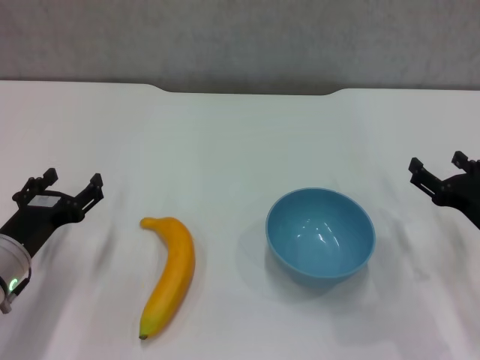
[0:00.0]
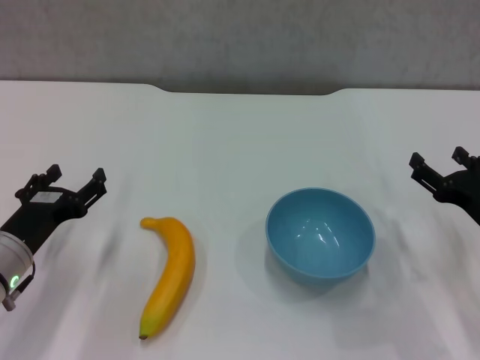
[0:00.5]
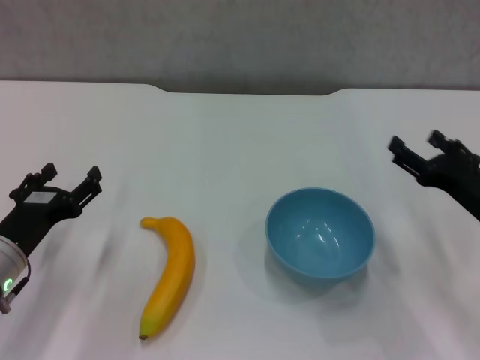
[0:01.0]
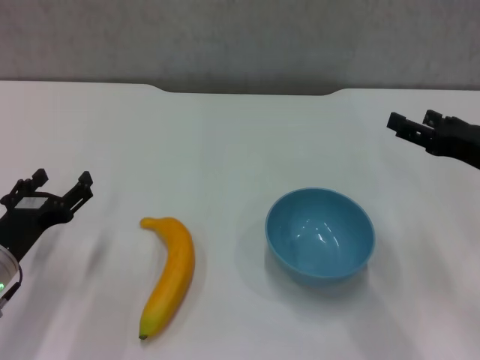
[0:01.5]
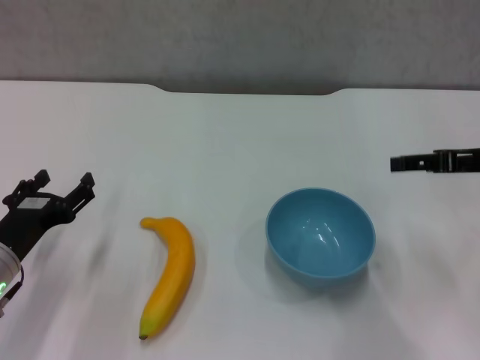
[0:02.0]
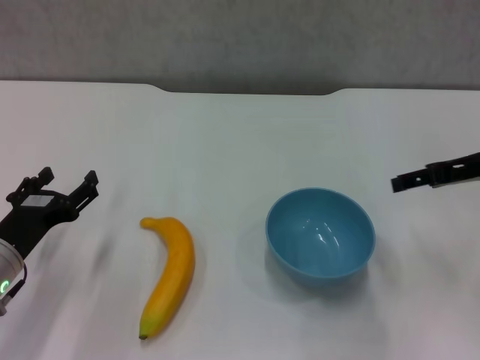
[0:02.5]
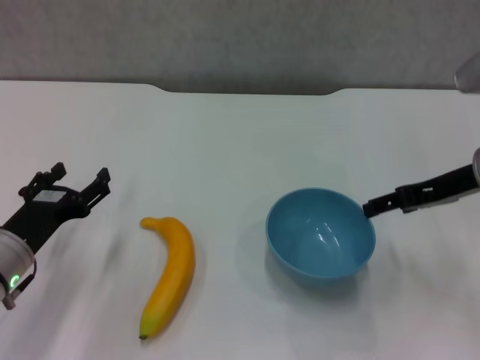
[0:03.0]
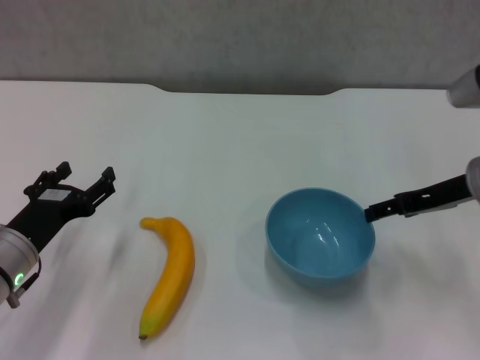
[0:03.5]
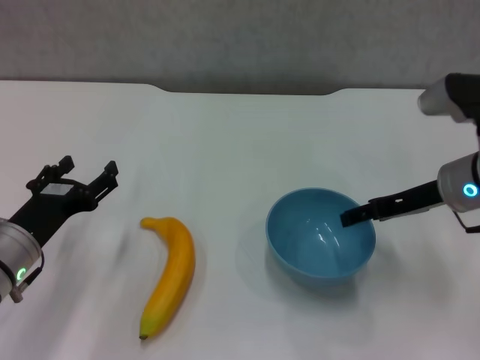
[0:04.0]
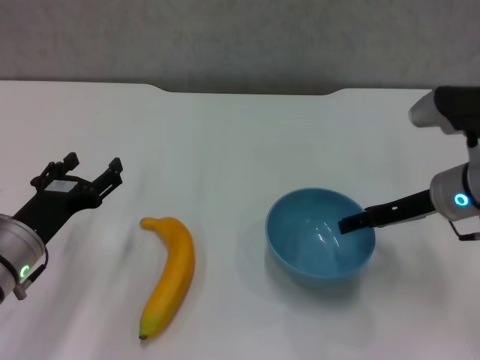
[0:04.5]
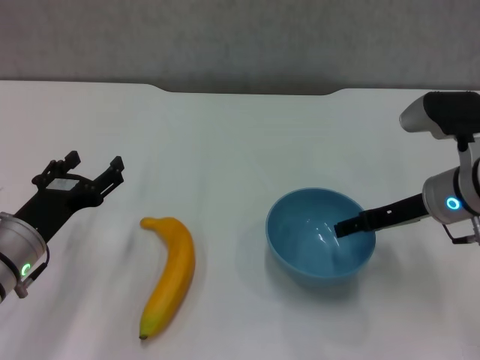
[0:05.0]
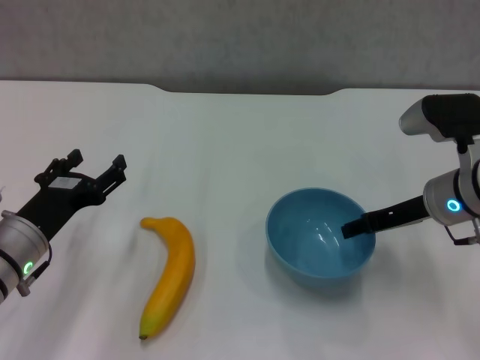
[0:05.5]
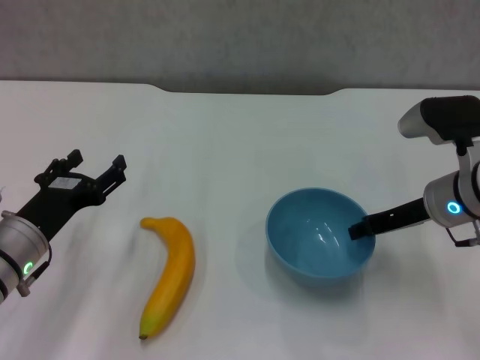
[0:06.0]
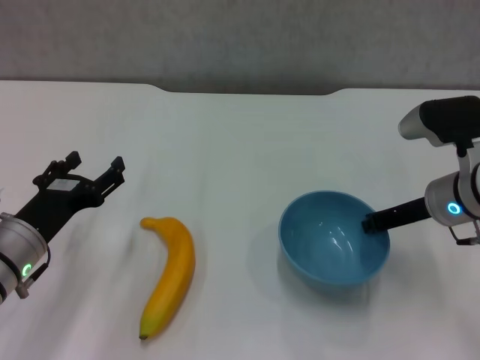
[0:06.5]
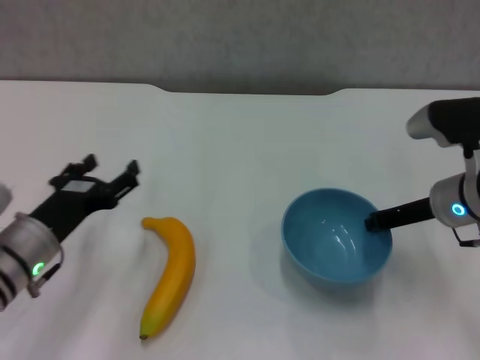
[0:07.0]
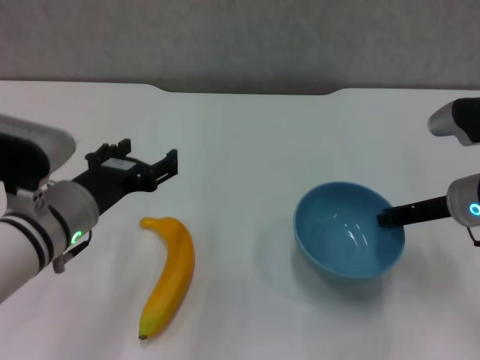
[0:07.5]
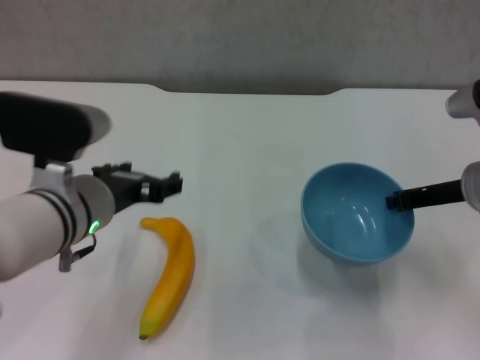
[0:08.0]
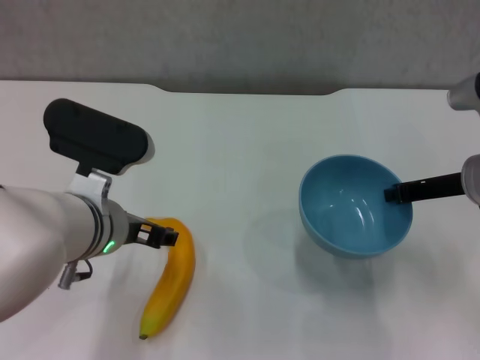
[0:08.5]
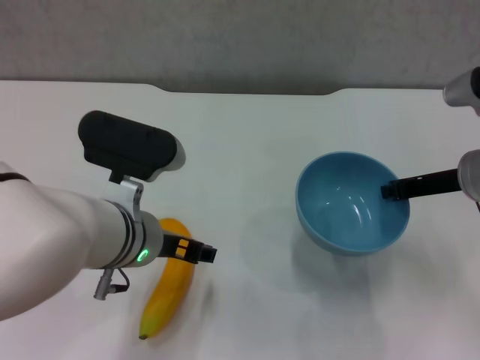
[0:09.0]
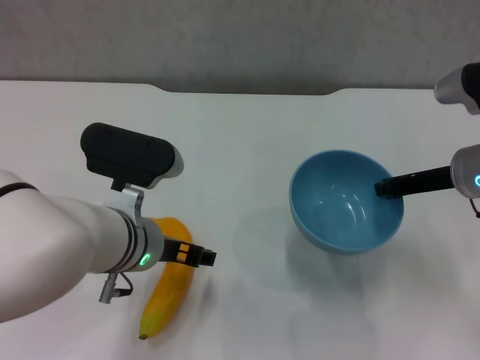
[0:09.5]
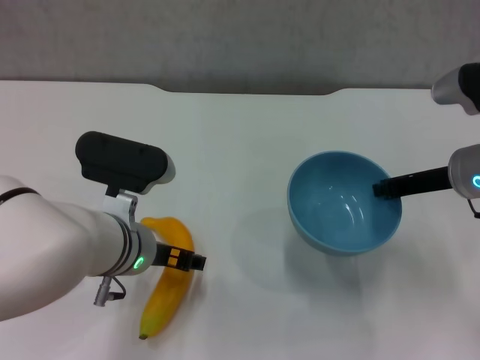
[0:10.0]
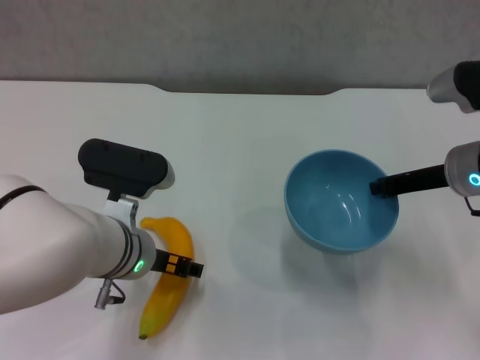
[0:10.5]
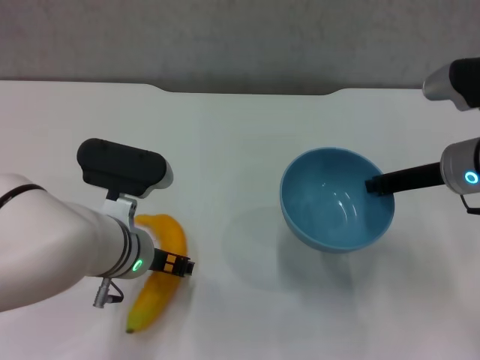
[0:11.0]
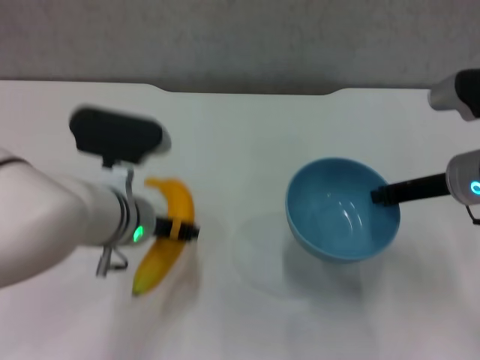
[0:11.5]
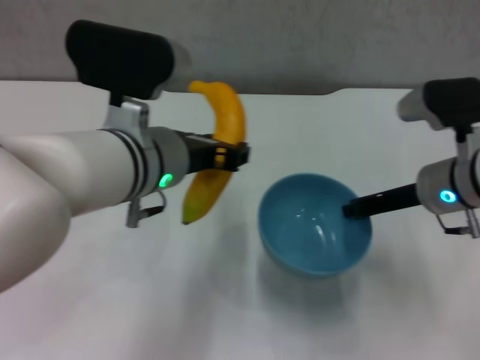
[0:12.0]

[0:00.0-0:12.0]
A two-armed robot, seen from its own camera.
Step, 0:00.0 to 0:06.0: Grasp the blue bowl with right gripper.
Step, 0:06.5 to 0:08.0: Lift the blue bowl with right gripper.
Step, 0:08.5 to 0:11.0: Grasp the banana with left gripper.
0:00.0 to 0:02.0: The right gripper travels upward by about 15 cm.
0:02.0 to 0:04.0: The right gripper goes some 10 cm to the left and downward.
0:04.0 to 0:06.0: The right gripper closes up.
0:06.0 to 0:08.0: The left gripper heads upward and to the right, covering some 15 cm; the right gripper closes up.
0:08.0 to 0:10.0: The left gripper moves about 5 cm.
0:10.0 to 0:12.0: The left gripper shifts some 10 cm upward, and closes up.

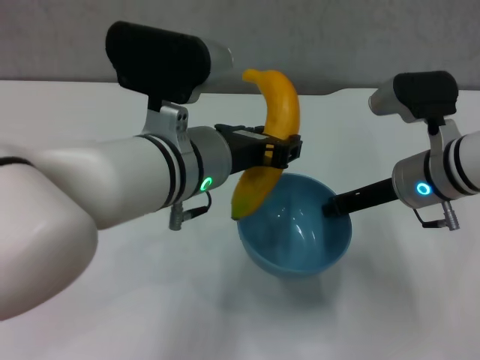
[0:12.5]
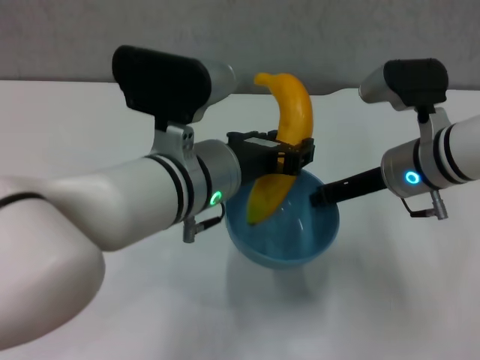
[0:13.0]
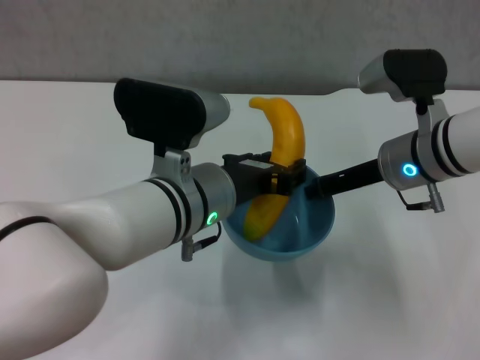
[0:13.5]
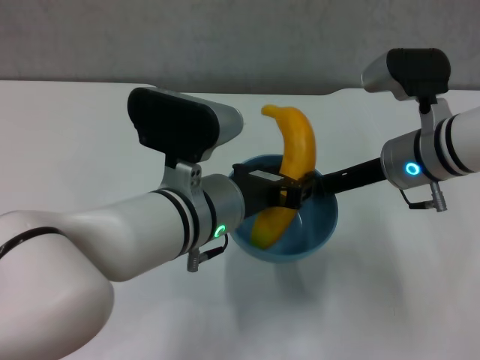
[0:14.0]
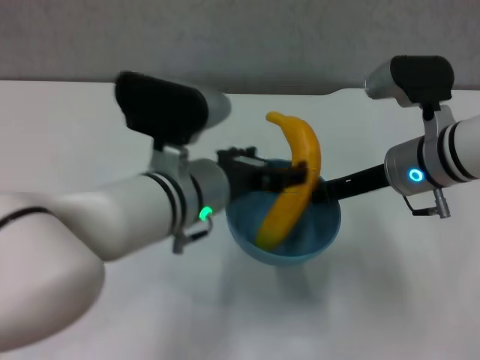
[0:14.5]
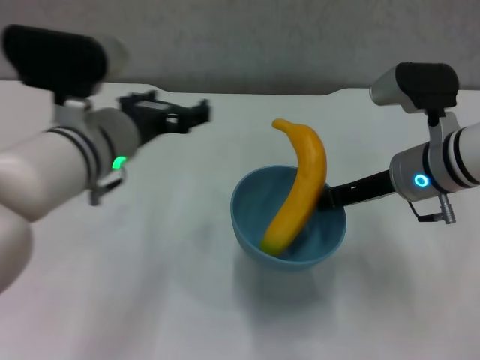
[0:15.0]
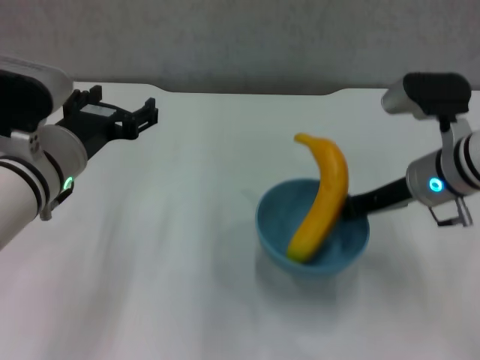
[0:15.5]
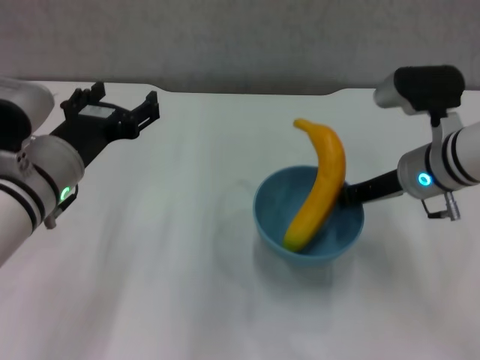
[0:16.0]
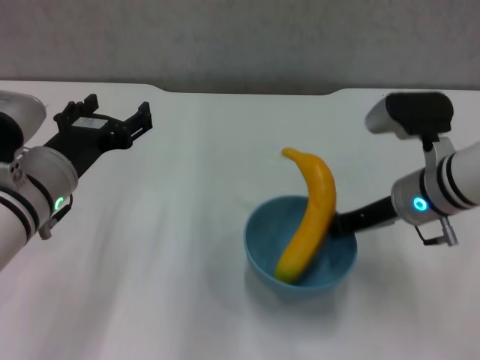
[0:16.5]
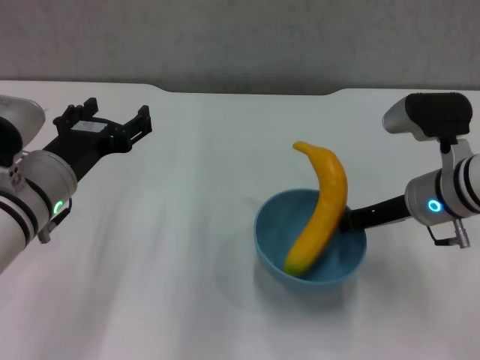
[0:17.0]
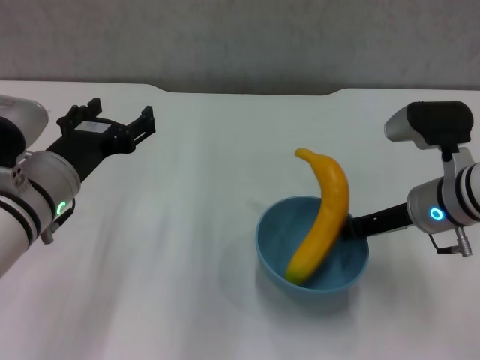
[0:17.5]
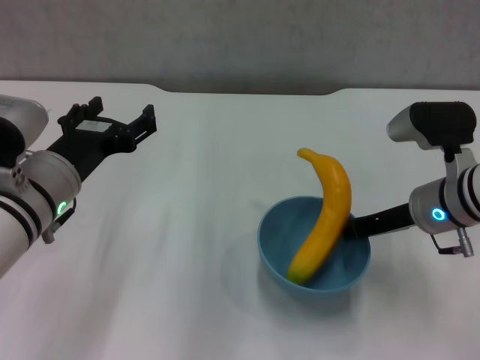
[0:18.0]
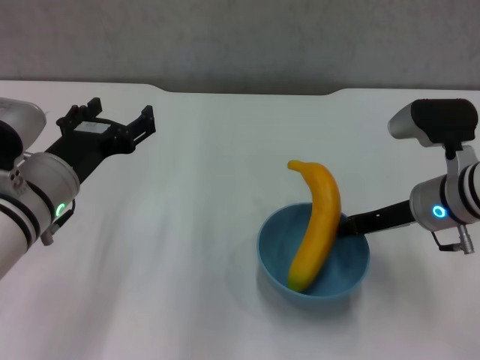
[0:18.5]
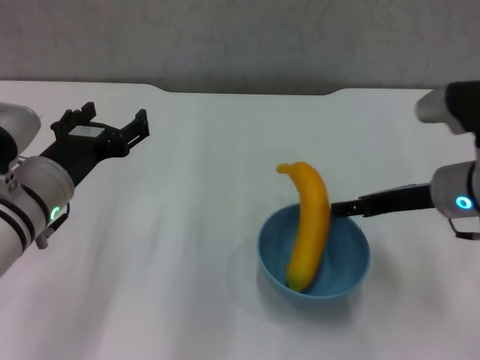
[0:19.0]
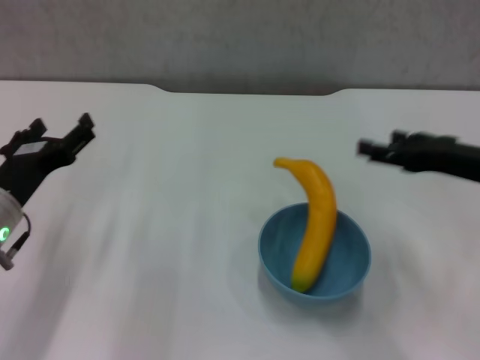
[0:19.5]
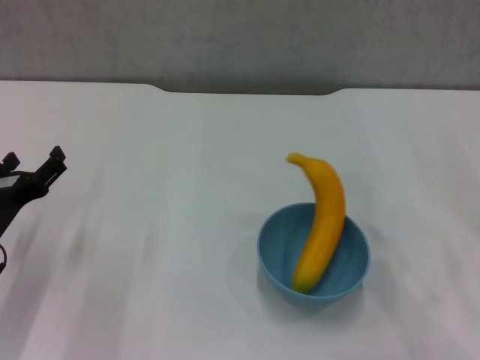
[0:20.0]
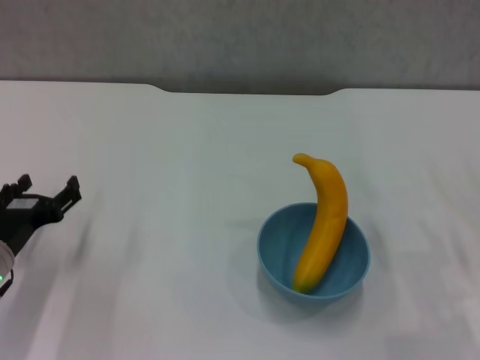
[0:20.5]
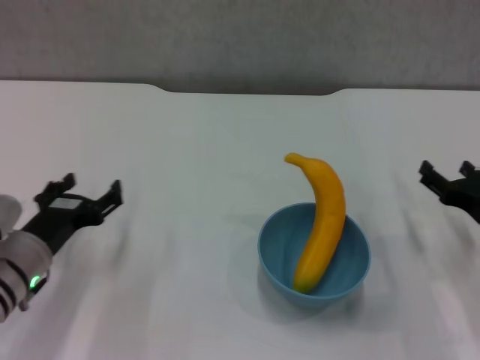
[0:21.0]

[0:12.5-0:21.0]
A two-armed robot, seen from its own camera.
Step, 0:12.5 to 0:14.5: Place the banana in the blue bowl with left gripper.
Step, 0:15.0 to 0:19.0: Place the bowl on the table with right gripper.
0:12.5 to 0:14.5: The left gripper opens up.
0:14.5 to 0:16.5: The left gripper shifts some 15 cm to the left, and opens up.
0:16.5 to 0:19.0: The right gripper opens its fingers.
0:19.0 to 0:21.0: The left gripper shifts about 10 cm downward; the right gripper is displaced downward, to the right and backward by approximately 15 cm.

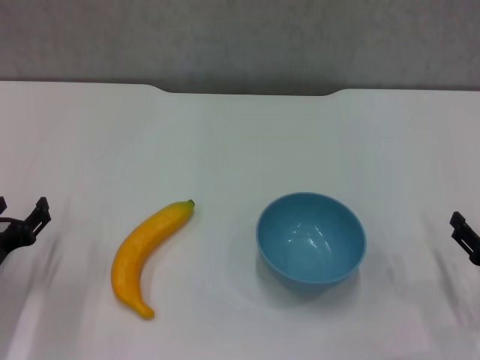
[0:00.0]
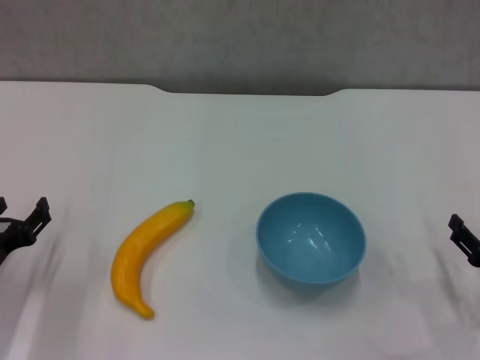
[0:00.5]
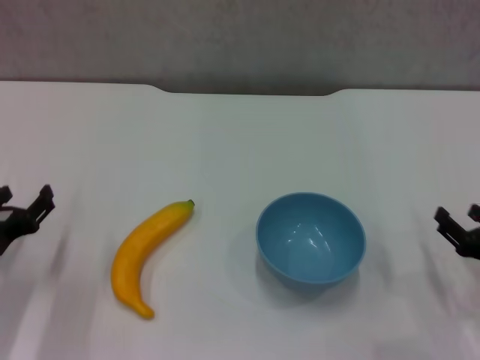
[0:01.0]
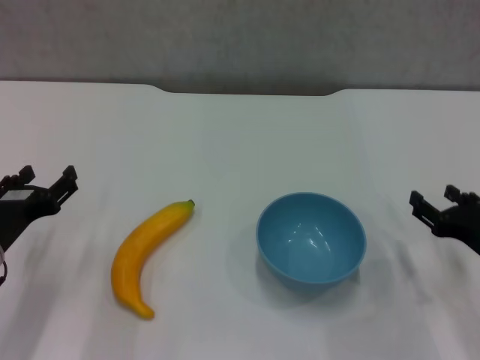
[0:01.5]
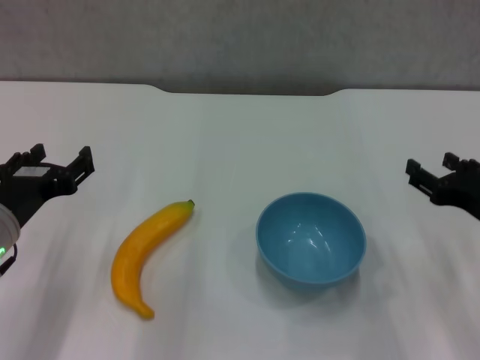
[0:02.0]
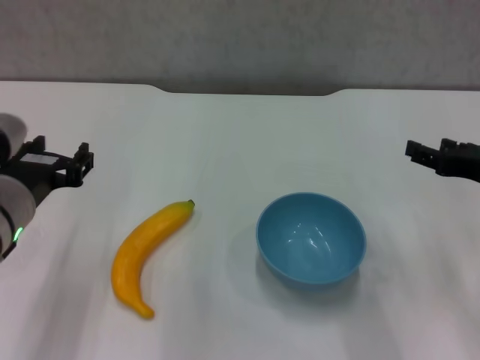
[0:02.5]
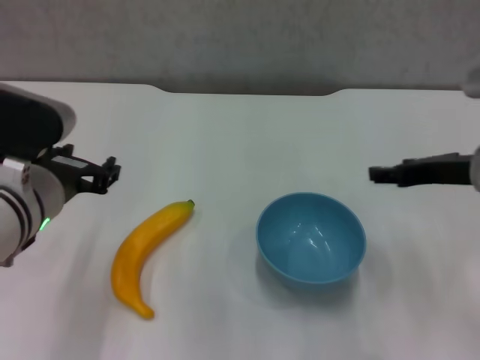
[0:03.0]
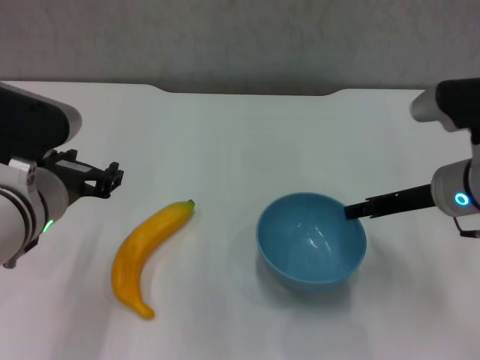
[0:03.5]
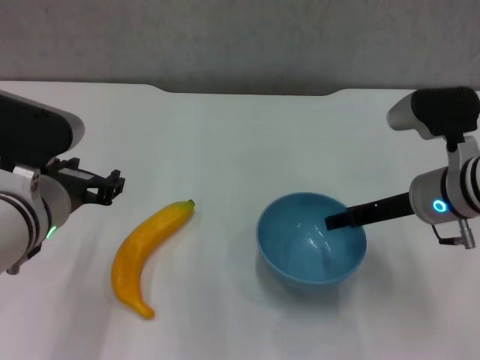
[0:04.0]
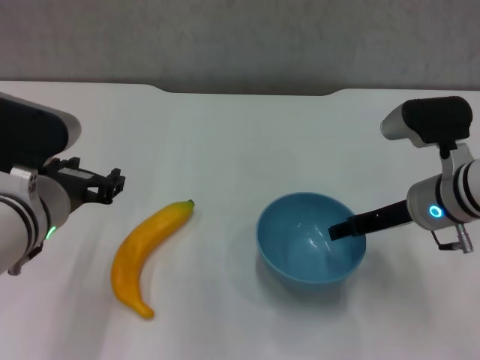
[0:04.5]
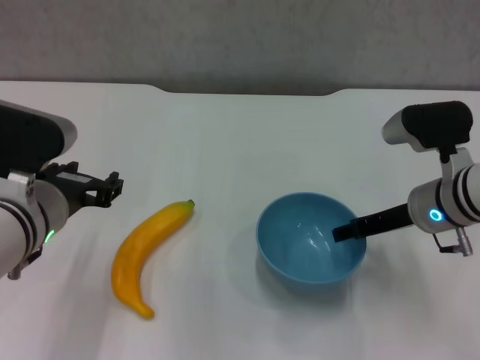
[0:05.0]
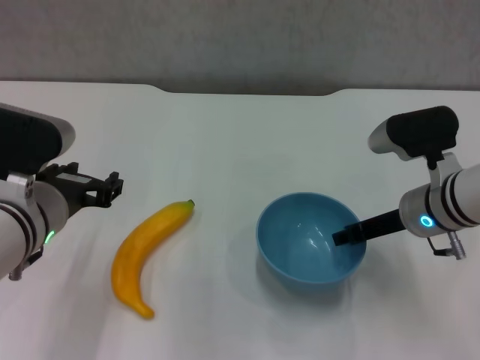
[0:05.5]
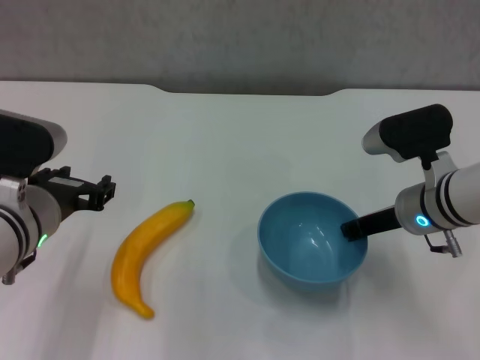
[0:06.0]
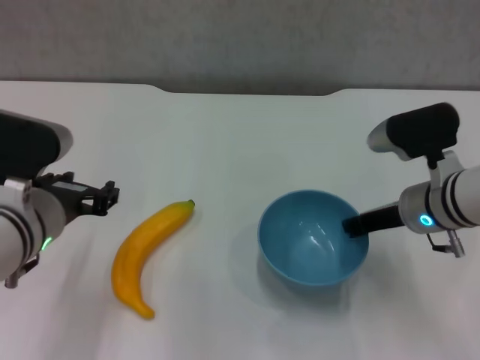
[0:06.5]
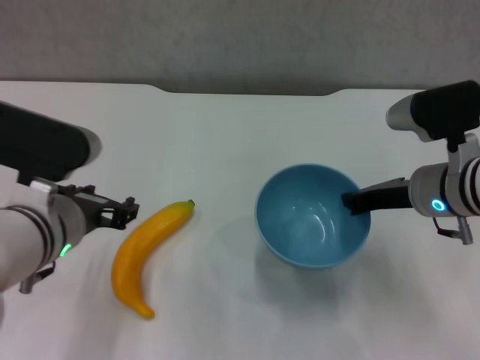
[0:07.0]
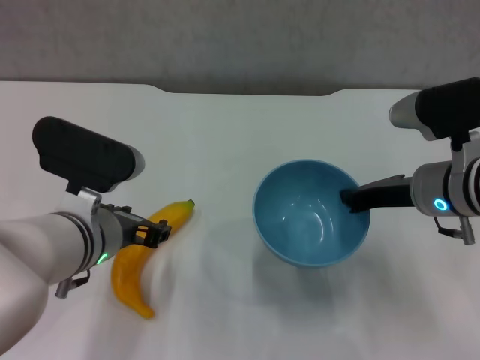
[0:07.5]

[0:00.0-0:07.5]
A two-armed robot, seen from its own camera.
Step, 0:00.0 to 0:06.0: Grasp the blue bowl with right gripper.
Step, 0:06.5 to 0:07.0: Lift the blue bowl with right gripper.
0:00.0 to 0:02.0: The right gripper heads upward and to the left, covering about 10 cm. The left gripper heads upward and to the right, covering some 10 cm.
0:02.0 to 0:04.0: The right gripper shifts some 10 cm forward and to the left. Meanwhile the left gripper heads to the right, covering some 5 cm.
0:04.0 to 0:05.5: There are only small adjustments of the grippers.
0:05.5 to 0:07.5: The right gripper closes its fingers.
